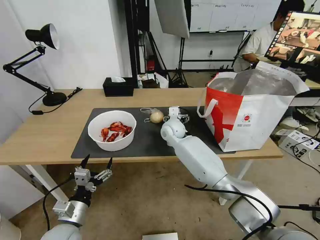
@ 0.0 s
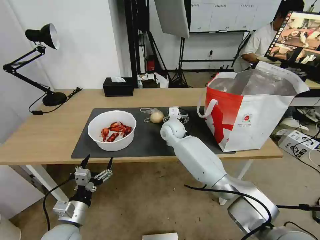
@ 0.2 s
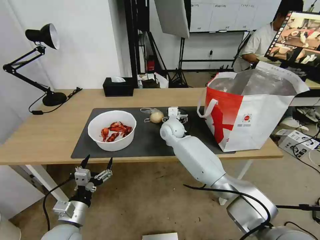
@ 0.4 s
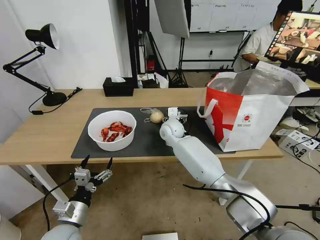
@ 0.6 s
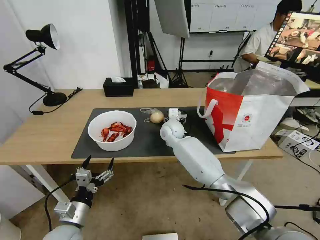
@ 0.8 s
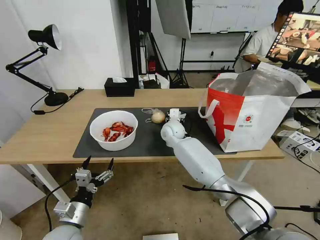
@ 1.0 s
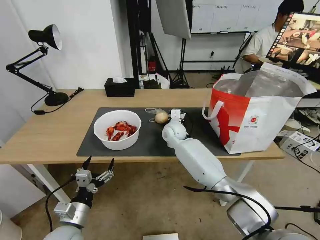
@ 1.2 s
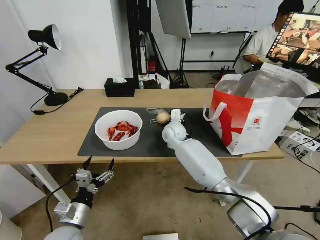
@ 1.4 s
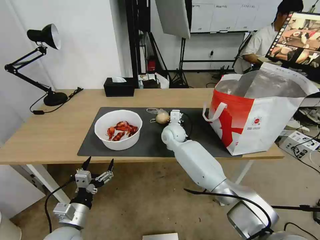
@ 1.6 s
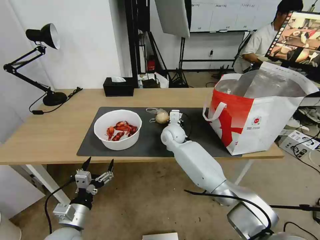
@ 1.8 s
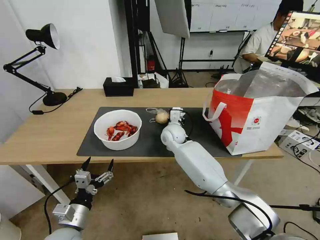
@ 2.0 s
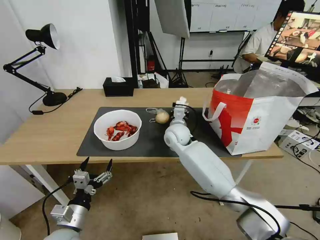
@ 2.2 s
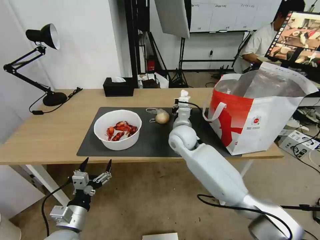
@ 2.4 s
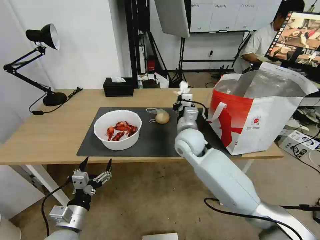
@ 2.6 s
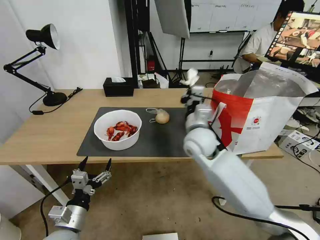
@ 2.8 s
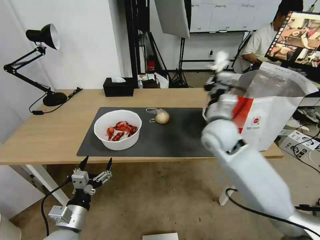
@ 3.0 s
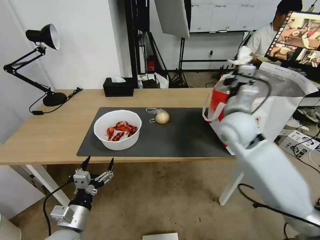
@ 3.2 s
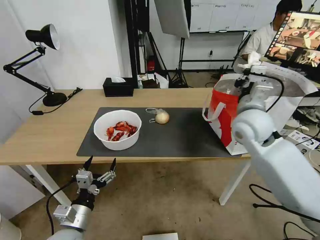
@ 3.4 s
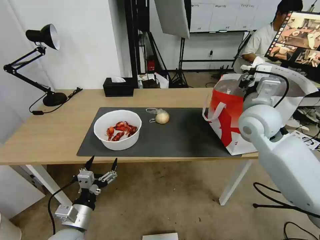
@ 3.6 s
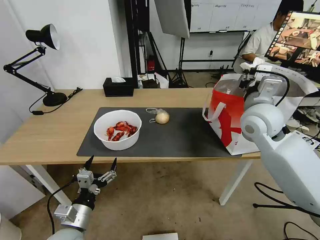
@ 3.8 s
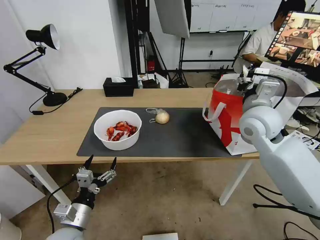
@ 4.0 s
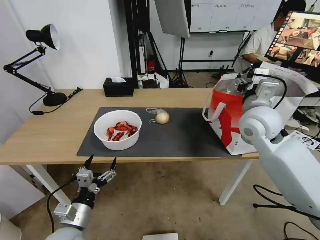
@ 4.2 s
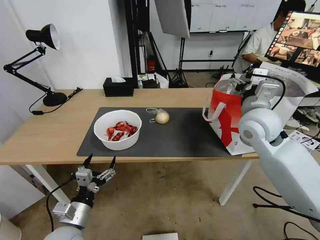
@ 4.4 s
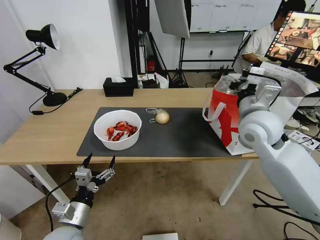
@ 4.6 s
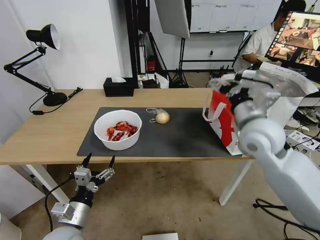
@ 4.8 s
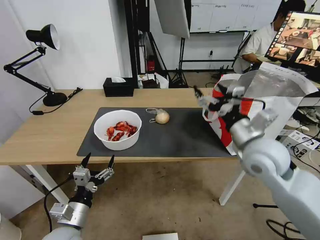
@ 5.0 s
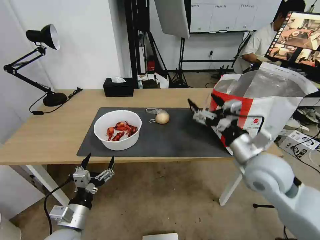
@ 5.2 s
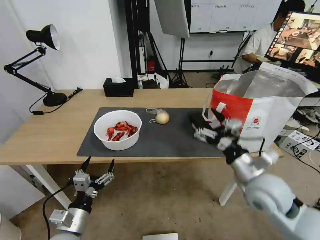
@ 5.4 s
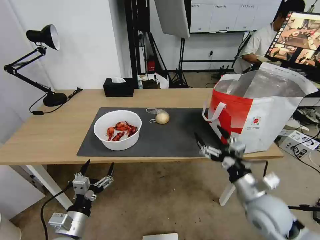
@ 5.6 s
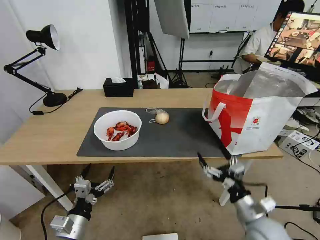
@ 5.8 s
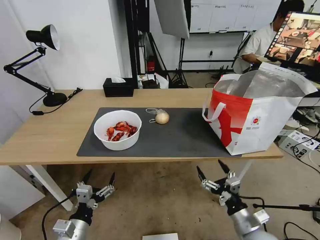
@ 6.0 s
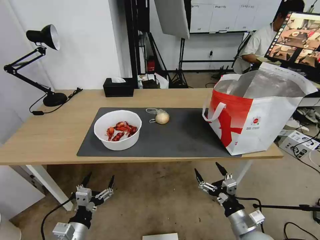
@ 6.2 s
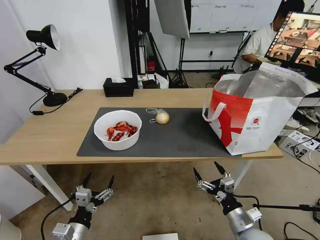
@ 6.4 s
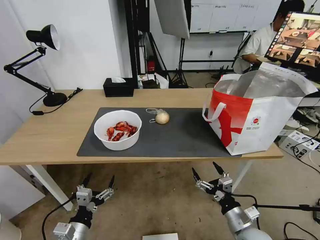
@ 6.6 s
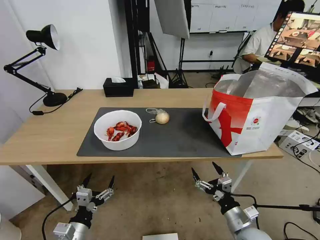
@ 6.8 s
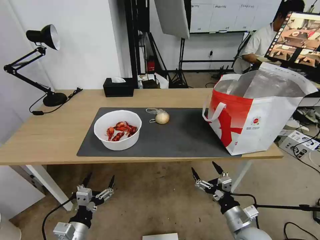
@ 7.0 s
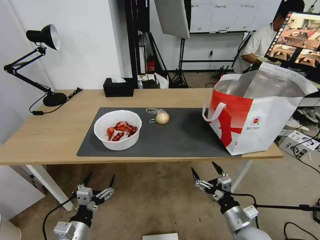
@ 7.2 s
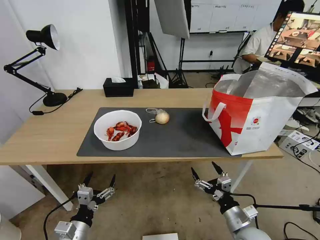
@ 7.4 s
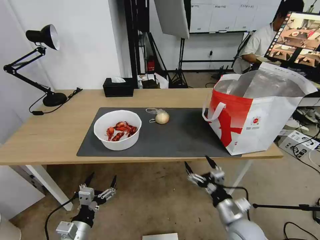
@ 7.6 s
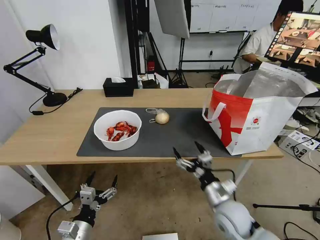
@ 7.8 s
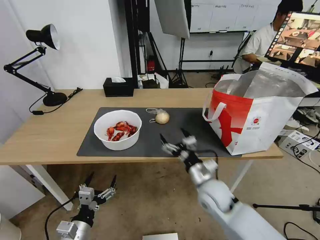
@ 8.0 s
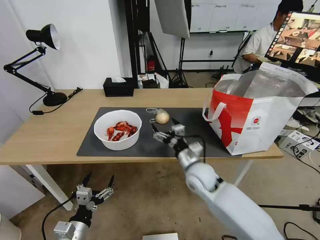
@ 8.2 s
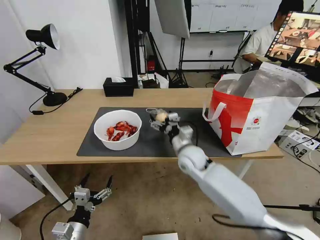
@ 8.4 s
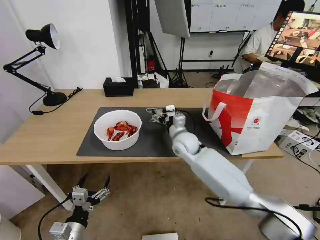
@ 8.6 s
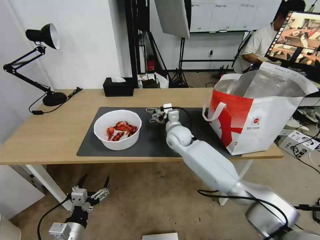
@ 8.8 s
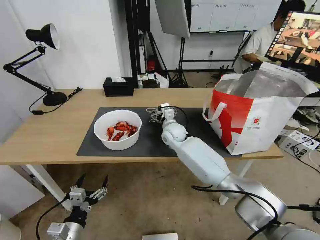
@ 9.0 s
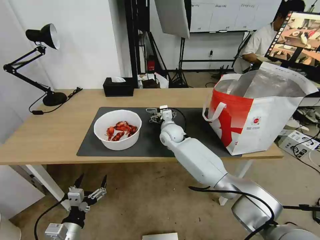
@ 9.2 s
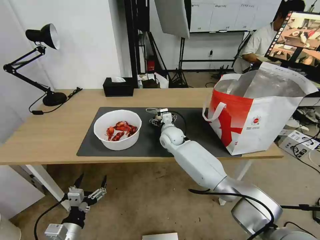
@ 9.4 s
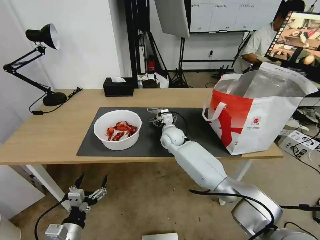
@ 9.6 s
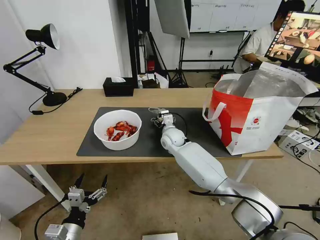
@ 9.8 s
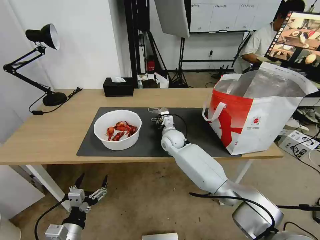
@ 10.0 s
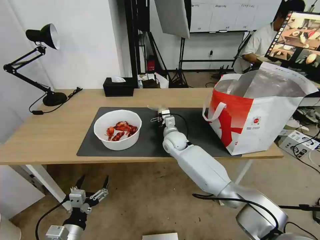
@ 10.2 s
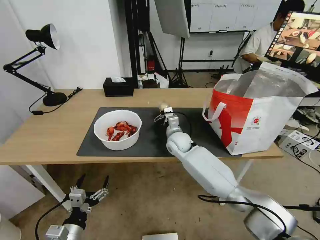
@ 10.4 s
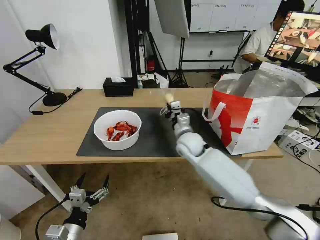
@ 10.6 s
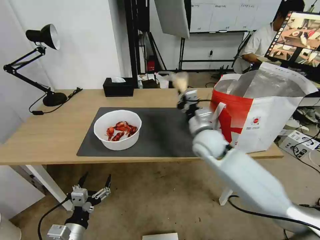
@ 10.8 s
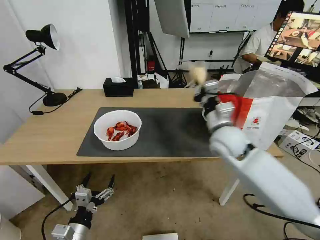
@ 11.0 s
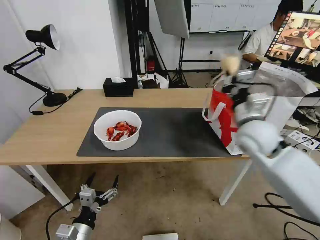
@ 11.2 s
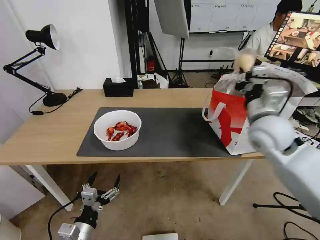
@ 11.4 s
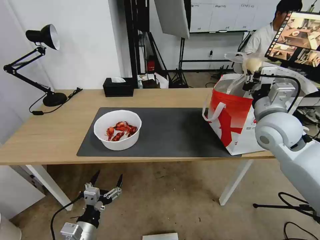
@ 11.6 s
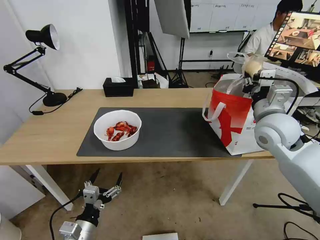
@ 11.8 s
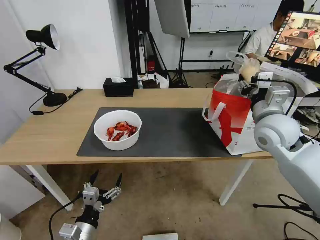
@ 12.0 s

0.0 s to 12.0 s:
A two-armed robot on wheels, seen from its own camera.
Task of the whole recording: Pick up the trash from the table and place it into the takeout bag.
0.0 to 1.6 s: The right gripper closes up.
1.6 to 3.0 s: The right gripper travels upward, backward and to the right by approximately 20 cm.
3.0 to 4.4 s: The right gripper goes roughly 10 cm to the right, and opens up.
4.4 to 6.0 s: The right gripper shifts about 35 cm downward and backward.
6.0 to 7.6 s: The grippers stay close to where they were, moving slightly.
7.6 to 9.0 s: The right gripper shifts some 40 cm forward and to the left.
9.0 to 10.4 s: The right gripper ends up approximately 5 cm from where it was, and closes.
10.4 to 12.0 s: The right gripper shifts some 30 cm to the right, upward and backward, and opens.

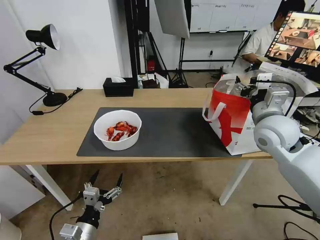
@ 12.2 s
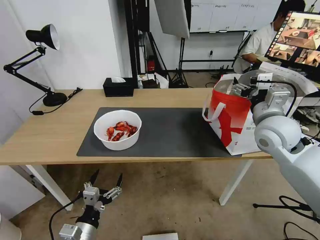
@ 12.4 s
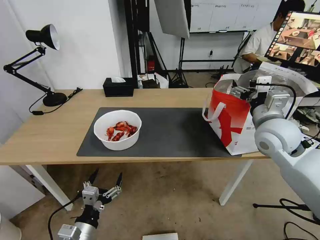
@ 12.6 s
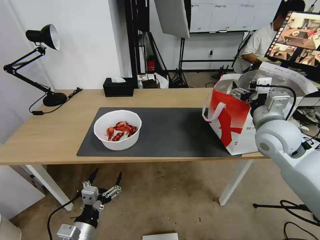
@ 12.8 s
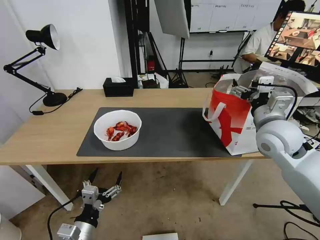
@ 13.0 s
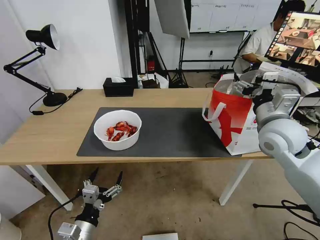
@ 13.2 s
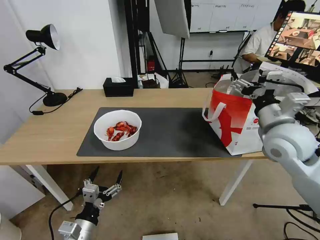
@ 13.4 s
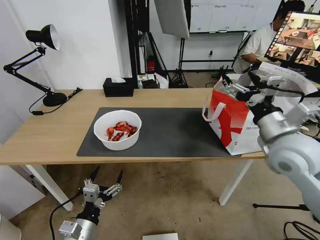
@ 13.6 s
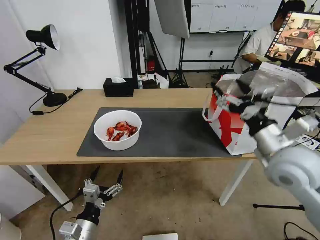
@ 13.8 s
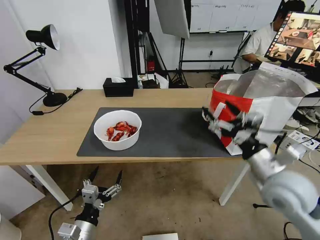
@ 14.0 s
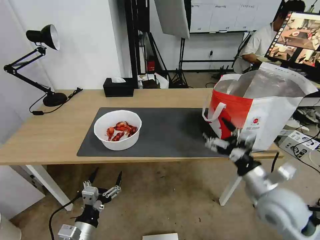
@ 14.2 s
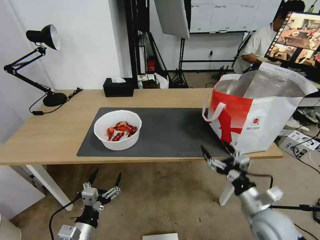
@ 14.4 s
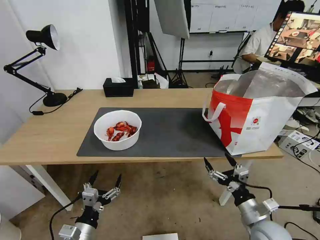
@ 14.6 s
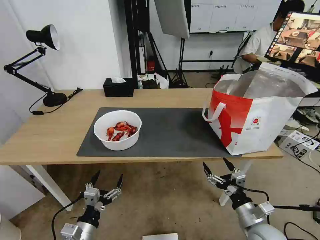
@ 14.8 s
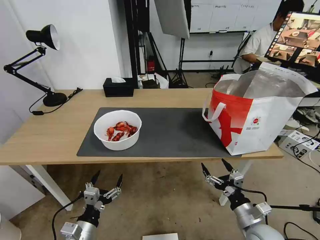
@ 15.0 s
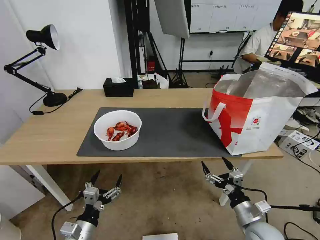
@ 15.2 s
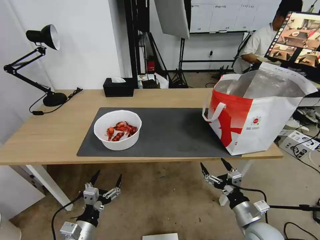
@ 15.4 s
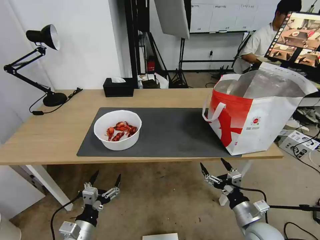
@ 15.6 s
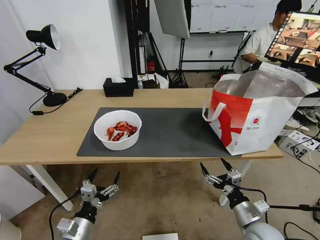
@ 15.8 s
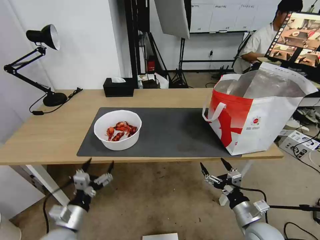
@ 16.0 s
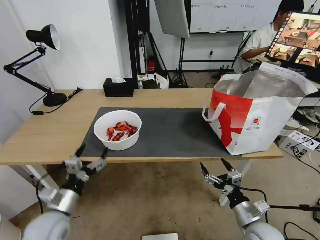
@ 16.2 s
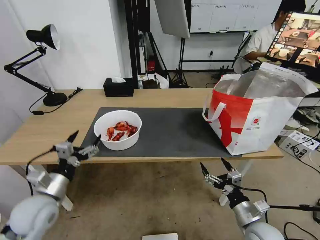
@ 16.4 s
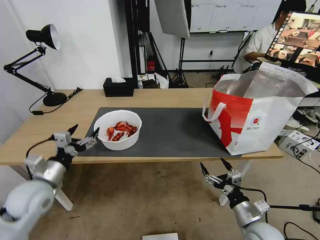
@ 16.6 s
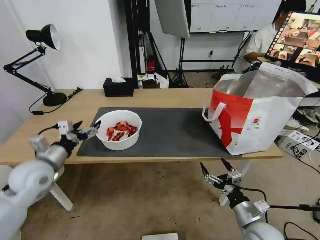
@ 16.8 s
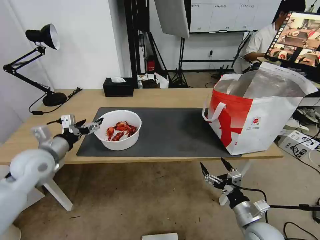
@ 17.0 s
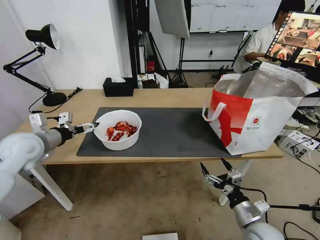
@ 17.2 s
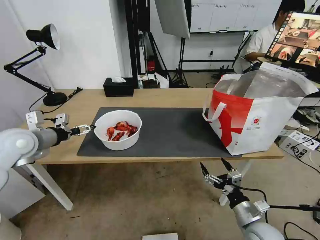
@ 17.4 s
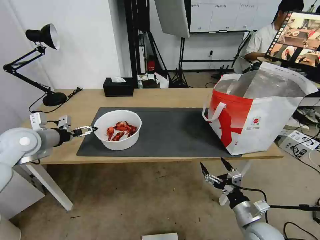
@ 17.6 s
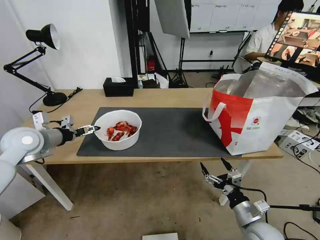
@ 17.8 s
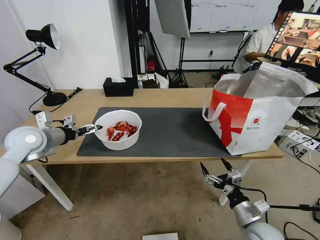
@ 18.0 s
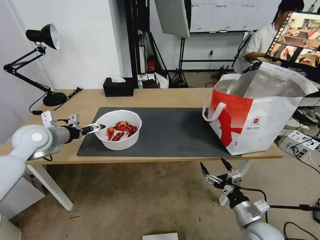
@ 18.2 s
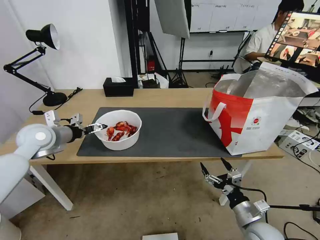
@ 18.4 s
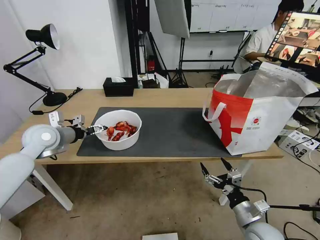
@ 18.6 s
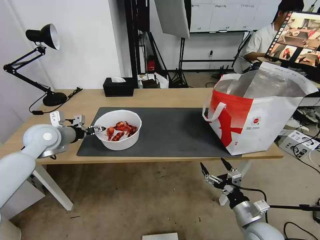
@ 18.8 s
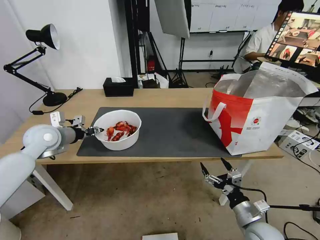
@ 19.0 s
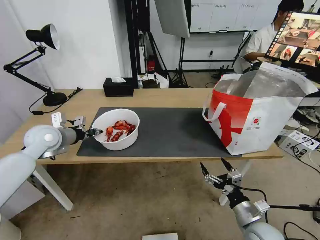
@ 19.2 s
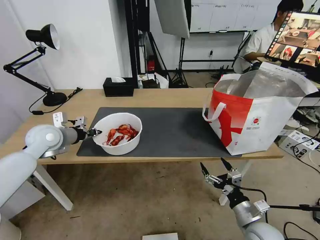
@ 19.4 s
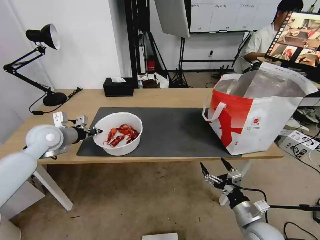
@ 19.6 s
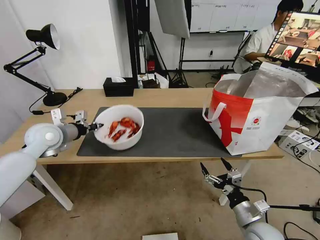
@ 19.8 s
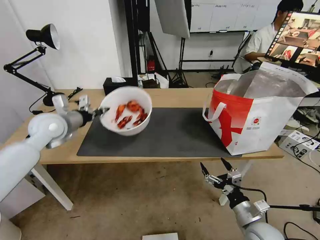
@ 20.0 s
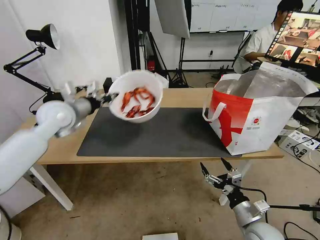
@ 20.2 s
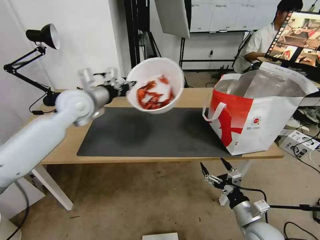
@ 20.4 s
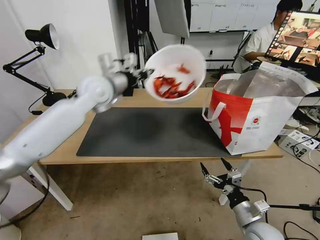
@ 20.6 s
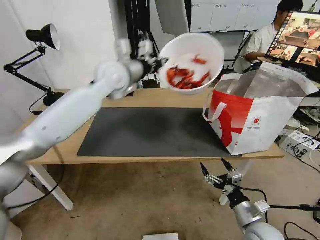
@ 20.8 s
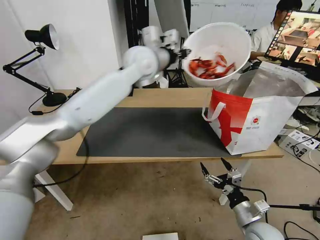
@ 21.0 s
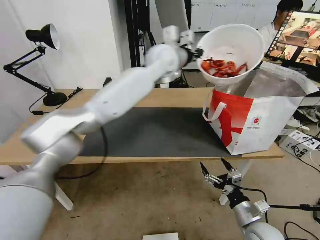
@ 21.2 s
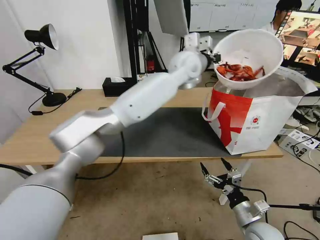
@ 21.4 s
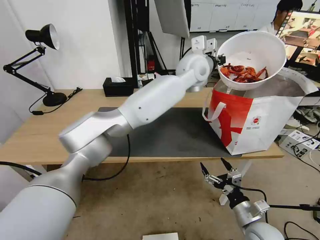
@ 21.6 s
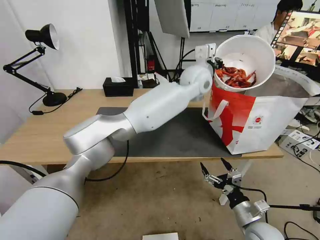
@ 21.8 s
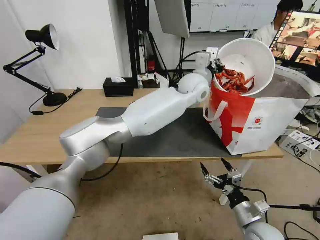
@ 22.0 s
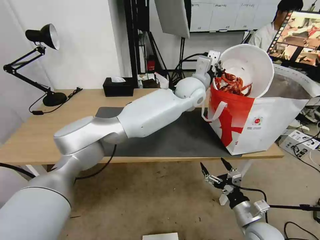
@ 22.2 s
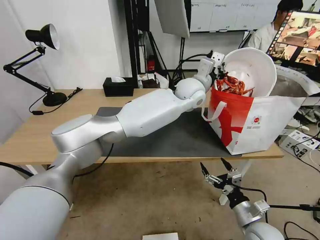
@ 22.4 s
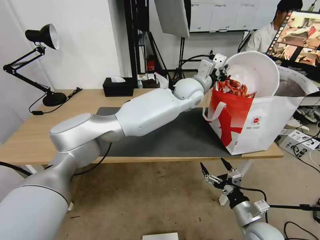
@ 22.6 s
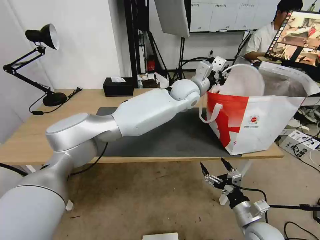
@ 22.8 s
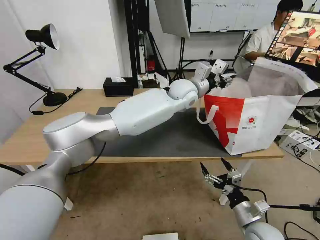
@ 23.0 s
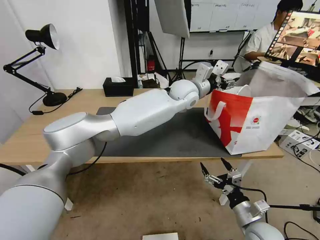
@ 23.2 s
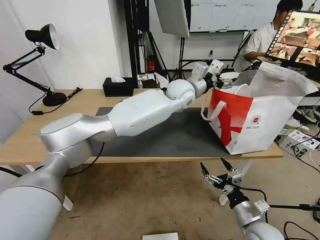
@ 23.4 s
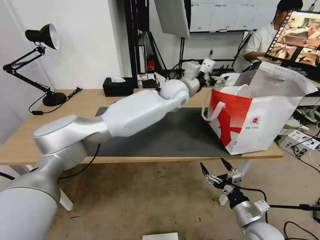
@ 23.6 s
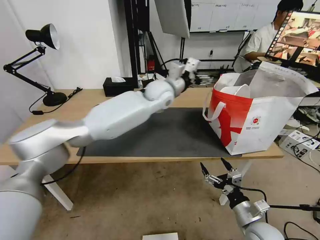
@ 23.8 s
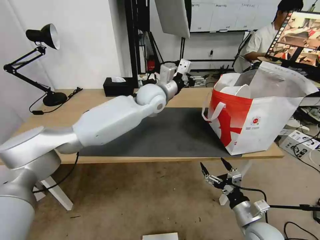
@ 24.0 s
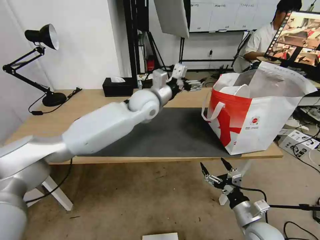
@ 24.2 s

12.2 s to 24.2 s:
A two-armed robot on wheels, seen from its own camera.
Task of the whole recording: Pick up the trash from the table and place it into the takeout bag.
12.2 to 13.8 s: The right gripper heads backward, covering about 10 cm.
13.8 to 15.2 s: The right gripper heads downward and backward, covering some 25 cm.
15.2 to 16.6 s: The left gripper moves upward, forward and to the left, about 20 cm.
16.6 to 18.2 s: The left gripper shifts about 15 cm forward and upward.
18.2 to 19.8 s: The left gripper closes.
19.8 to 21.2 s: The left gripper shifts some 40 cm to the right and upward.
21.2 to 22.6 s: The left gripper travels downward and to the right by approximately 10 cm.
22.6 to 24.2 s: The left gripper shifts about 15 cm to the left, and opens.
